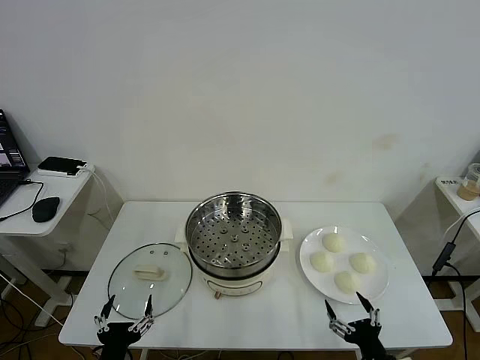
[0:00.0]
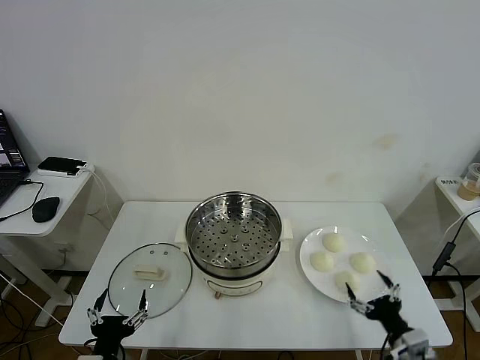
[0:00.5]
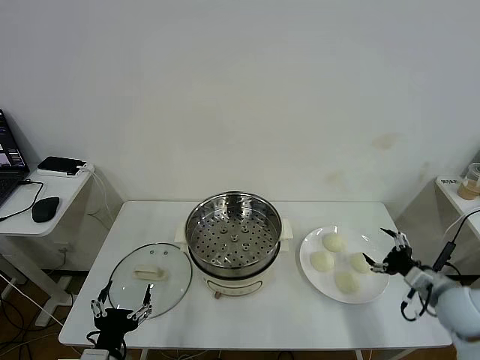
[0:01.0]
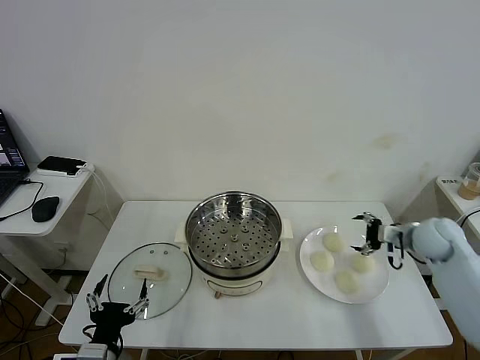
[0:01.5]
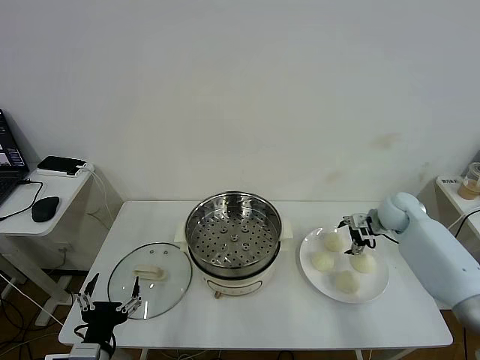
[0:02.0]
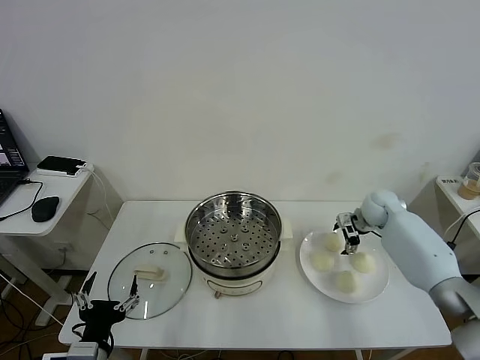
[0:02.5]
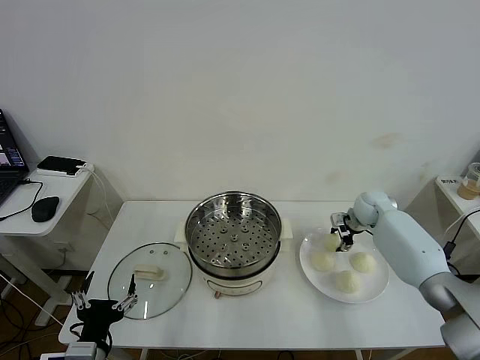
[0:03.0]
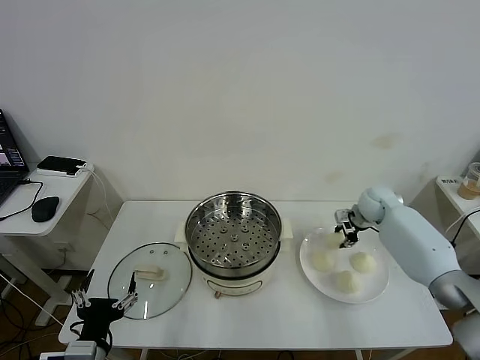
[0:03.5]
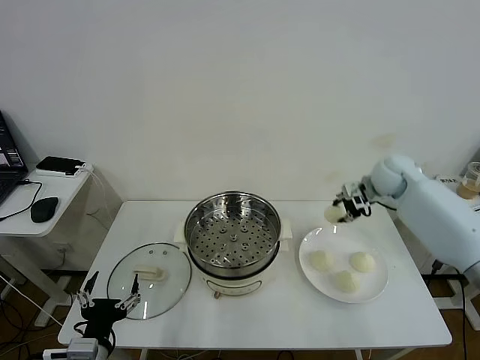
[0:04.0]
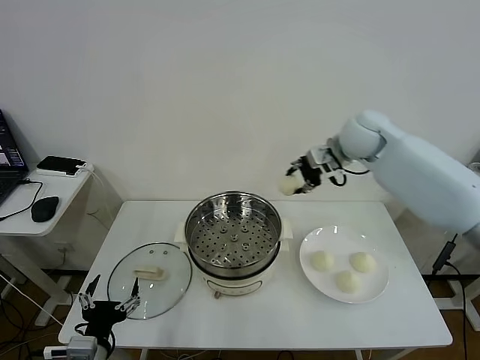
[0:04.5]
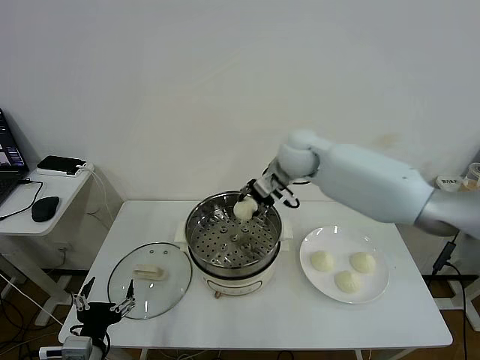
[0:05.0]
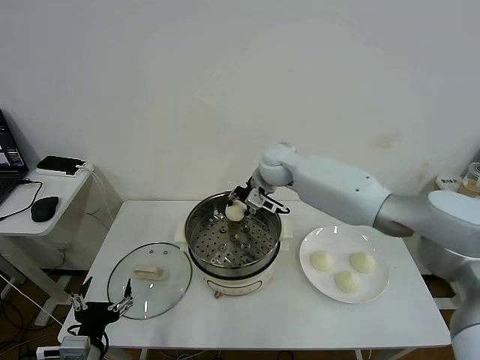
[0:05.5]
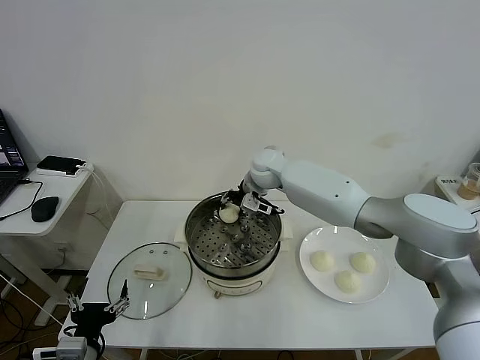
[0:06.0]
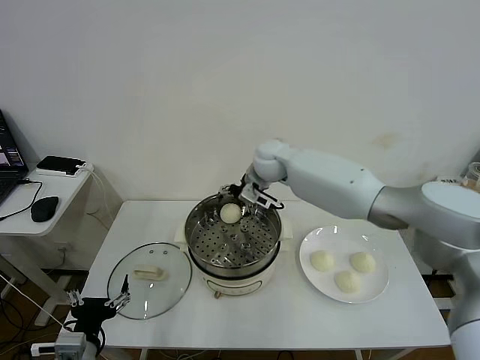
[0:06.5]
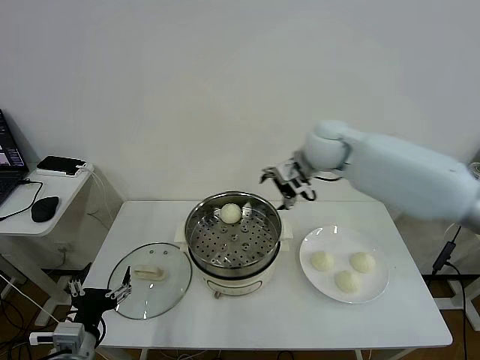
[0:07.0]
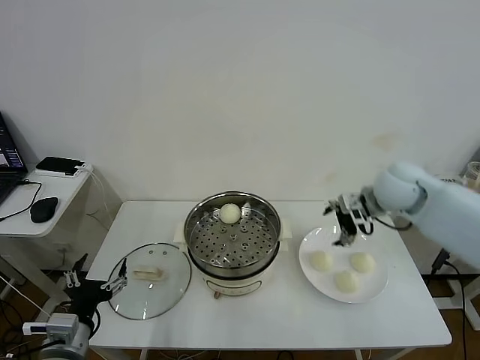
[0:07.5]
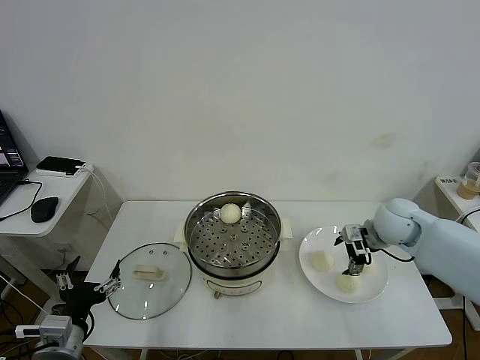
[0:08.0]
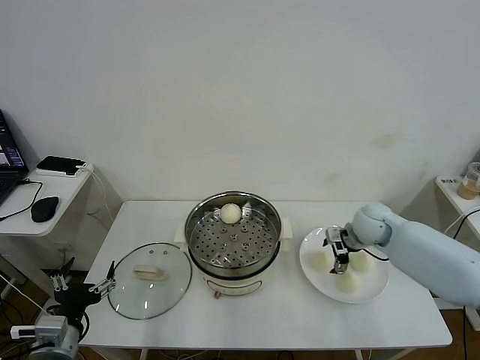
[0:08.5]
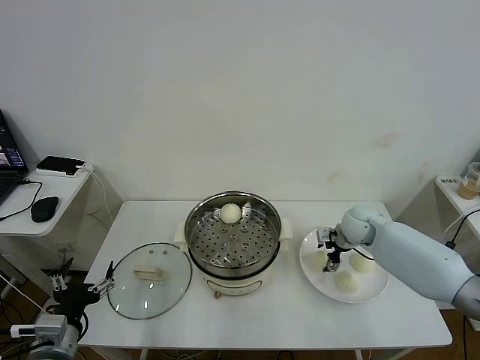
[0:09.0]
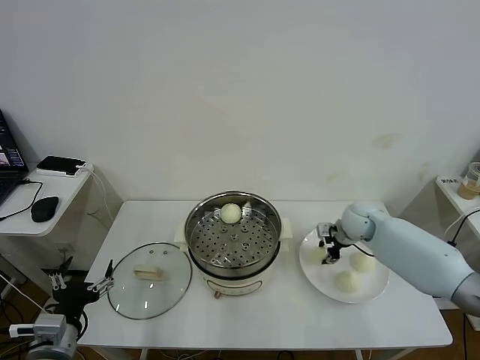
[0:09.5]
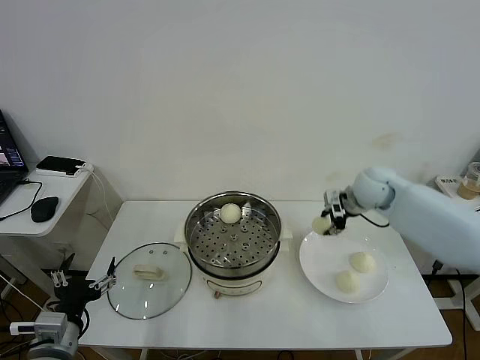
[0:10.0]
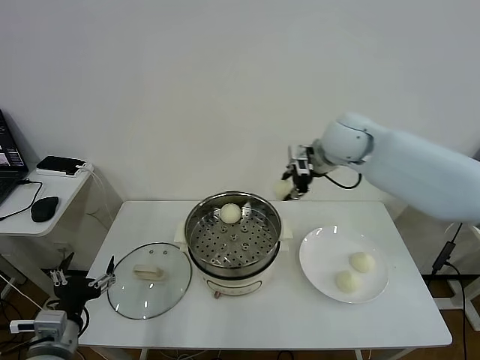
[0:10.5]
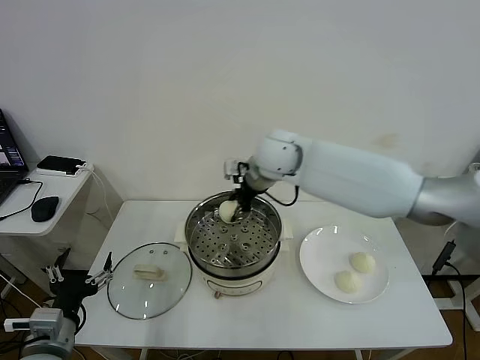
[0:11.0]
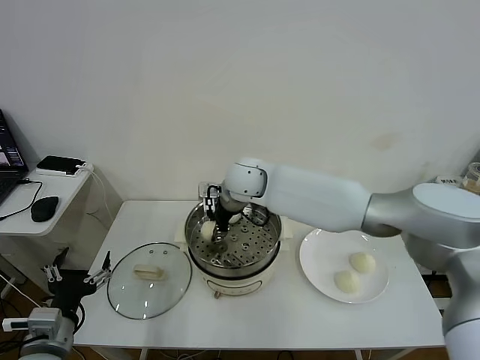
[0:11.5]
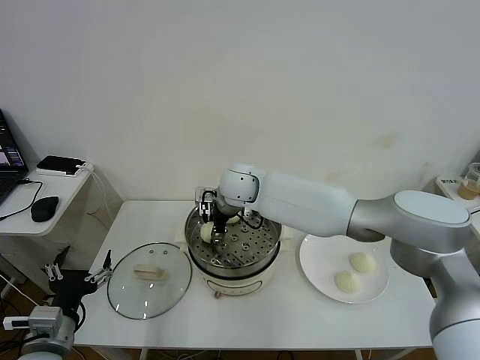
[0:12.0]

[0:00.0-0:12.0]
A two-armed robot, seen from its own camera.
Task of the whole recording: take steamed baozi put them in steamer then cover it.
Step, 0.0 to 2.5 s: Grasp the baozi in the plate with right gripper.
Step, 3.0 to 6.0 s: Place the baozi on the steamer with right gripper.
Step, 6.5 to 9.0 s: Grasp the baozi in the plate with right gripper.
2.0 to 4.0 s: The right gripper travels upward by roughly 15 cm, and closes its fingers.
4.0 to 6.0 s: The right gripper shifts approximately 25 cm to the left.
6.0 to 8.0 s: The right gripper heads to the right and backward, covering about 30 cm, and opens its fingers.
8.0 to 10.0 s: The right gripper shifts about 10 cm upward and forward, and closes up.
10.0 to 12.0 s: The right gripper travels to the left by about 30 cm, and opens up.

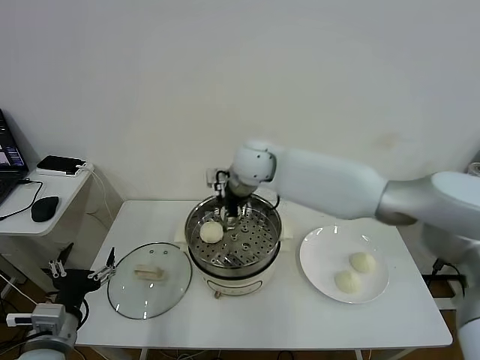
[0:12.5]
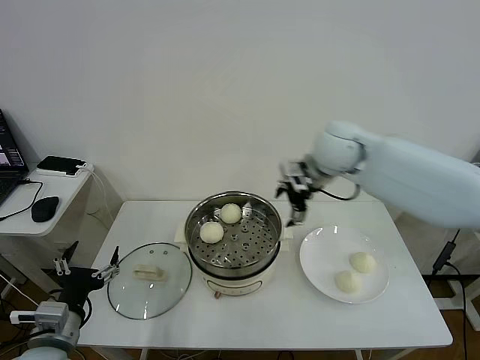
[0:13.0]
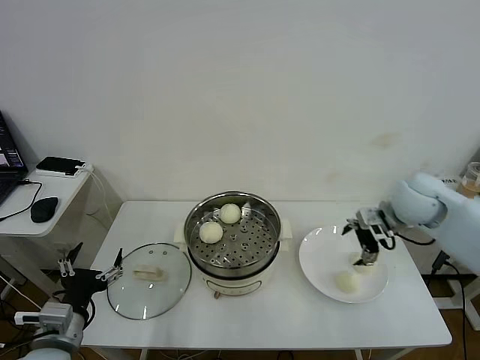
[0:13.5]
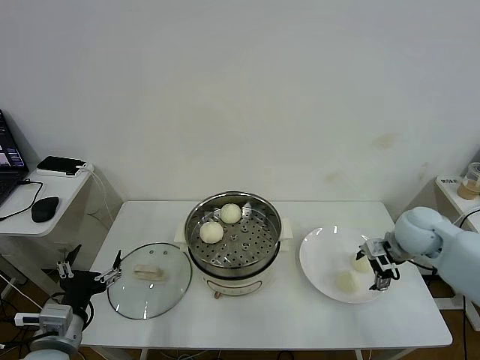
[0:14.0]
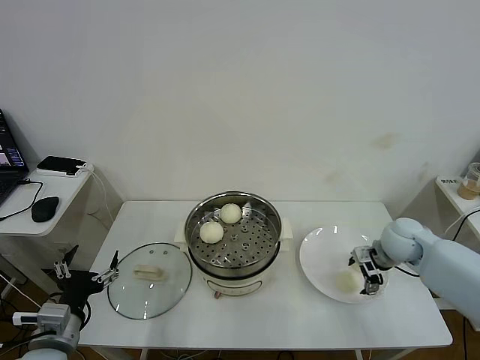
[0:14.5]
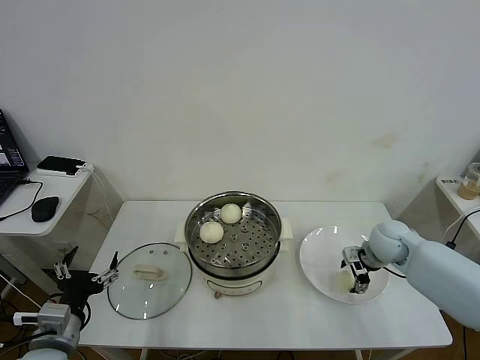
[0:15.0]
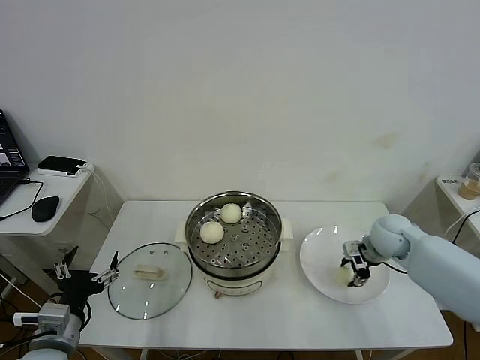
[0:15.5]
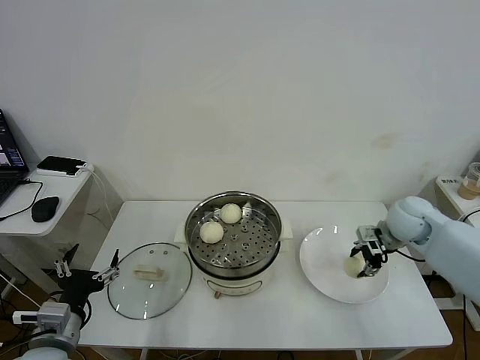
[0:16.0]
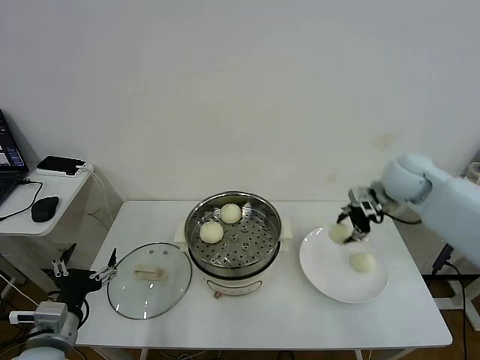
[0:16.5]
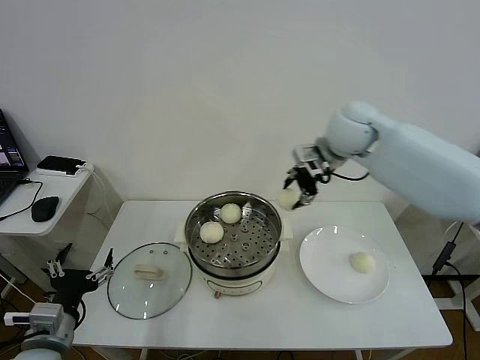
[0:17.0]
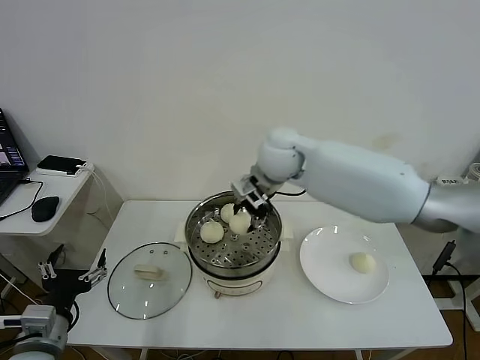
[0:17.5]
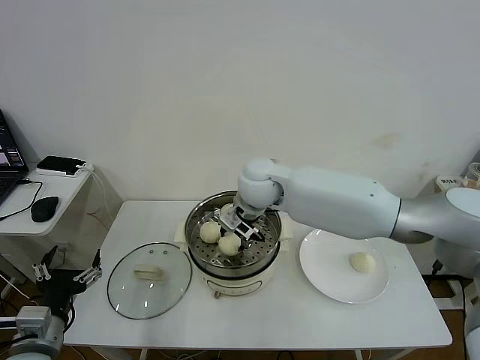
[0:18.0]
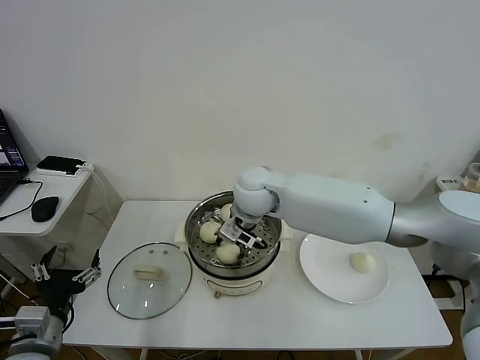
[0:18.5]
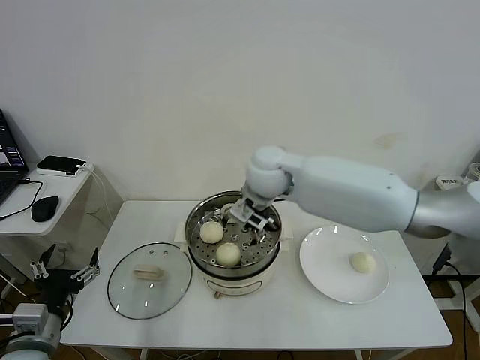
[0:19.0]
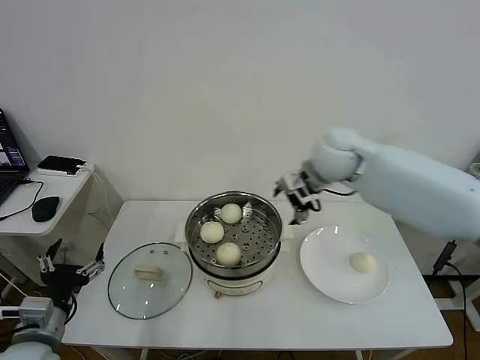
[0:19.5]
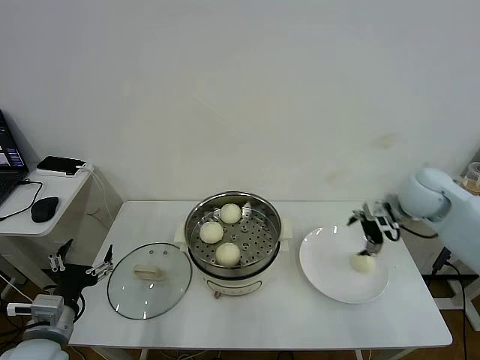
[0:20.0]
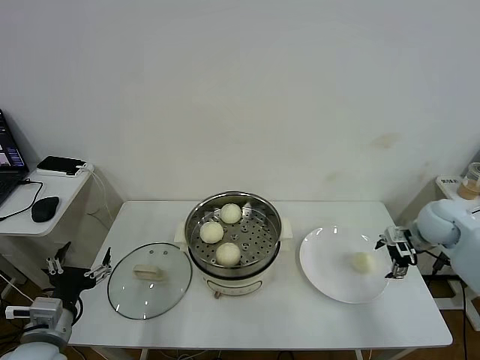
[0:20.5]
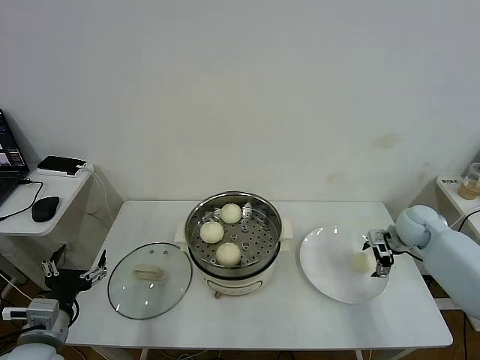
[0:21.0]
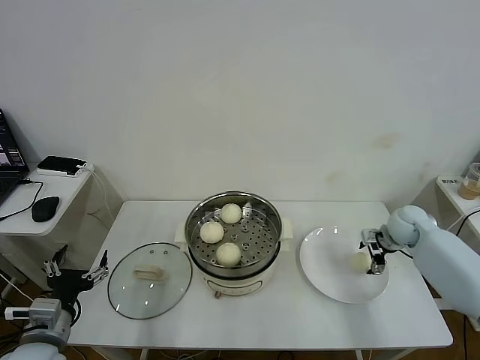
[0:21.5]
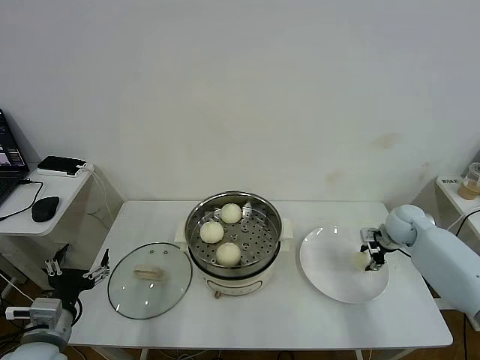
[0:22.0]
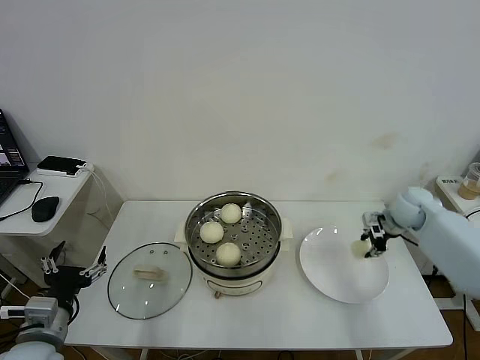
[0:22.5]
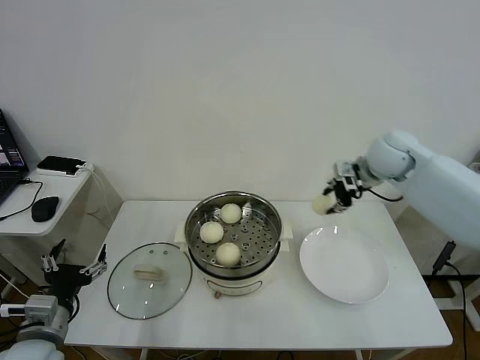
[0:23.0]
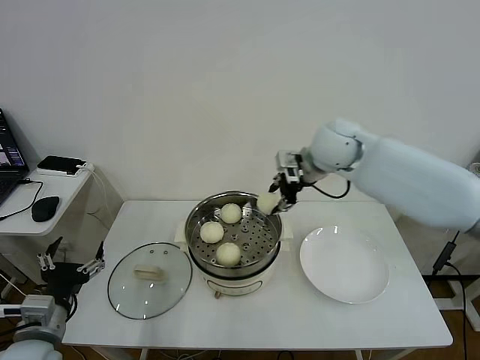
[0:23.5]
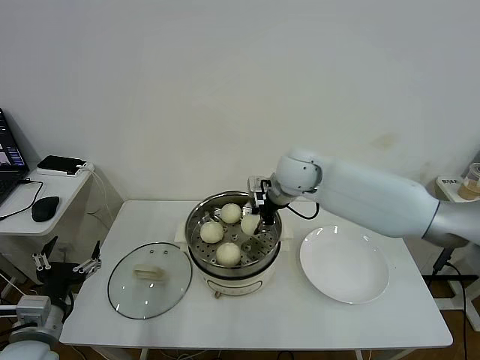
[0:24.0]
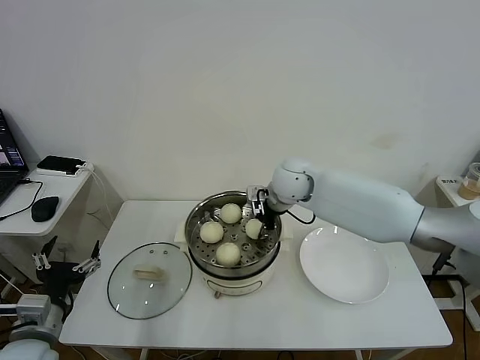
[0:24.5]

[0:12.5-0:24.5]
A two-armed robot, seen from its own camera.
Task of the whole recording: take steamed baozi put them in steamer then cover it.
Step, 12.5 to 15.5 s: Grasp the baozi in the plate with right gripper.
Step, 16.0 to 18.5 s: Place the baozi on the steamer with right gripper.
Step, 19.0 to 22.0 s: Grasp the baozi in the plate with right gripper.
12.5 to 14.5 s: The right gripper moves to the right and downward, approximately 35 cm.
14.5 to 16.5 s: The right gripper travels upward by some 15 cm, and closes up.
16.5 to 18.5 s: The right gripper moves to the left, some 30 cm.
18.5 to 20.5 s: The right gripper goes some 40 cm to the right, and opens up.
20.5 to 22.5 s: The right gripper heads forward, covering some 5 cm, and closes its fingers.
22.5 to 24.5 s: The right gripper travels to the left by some 30 cm.

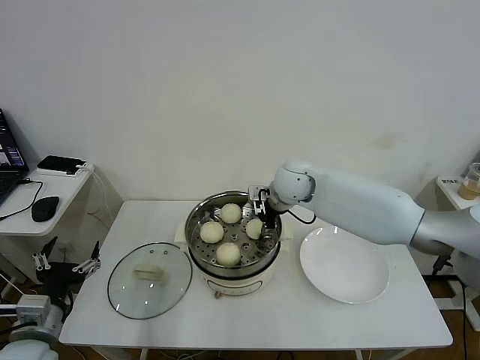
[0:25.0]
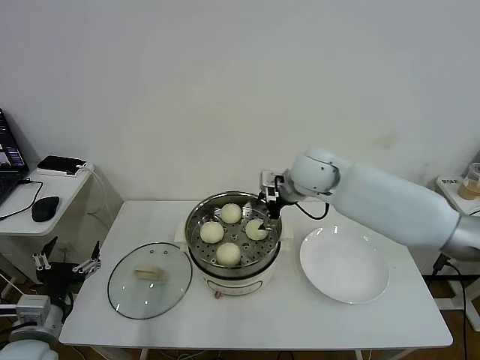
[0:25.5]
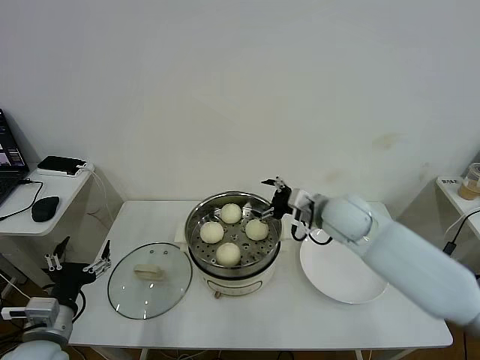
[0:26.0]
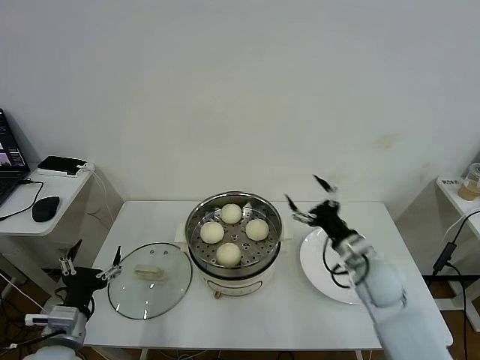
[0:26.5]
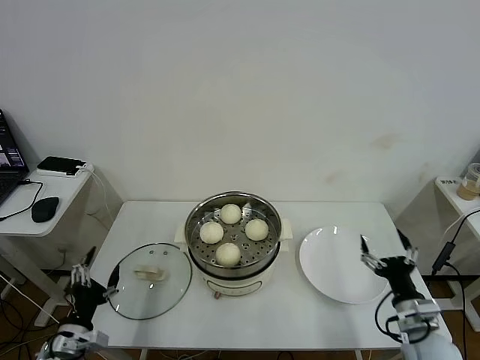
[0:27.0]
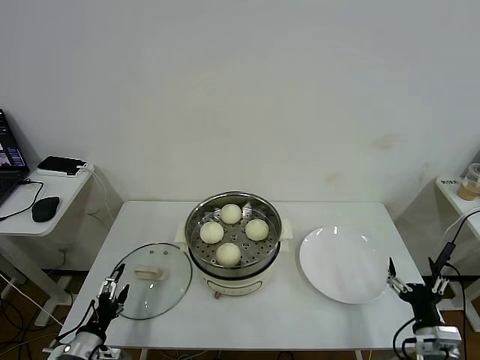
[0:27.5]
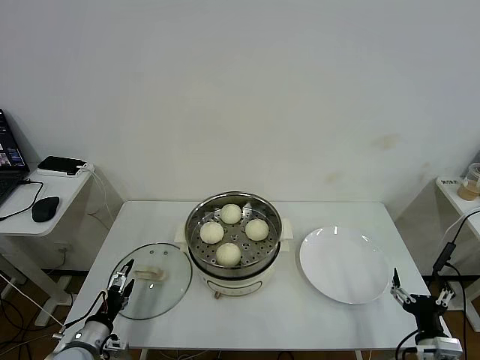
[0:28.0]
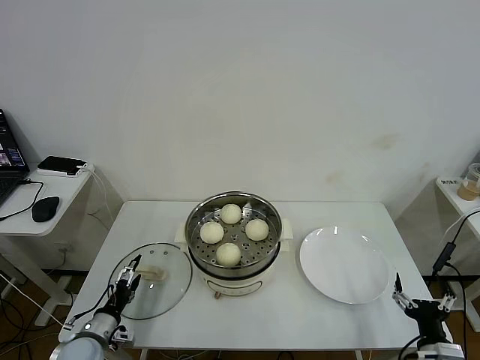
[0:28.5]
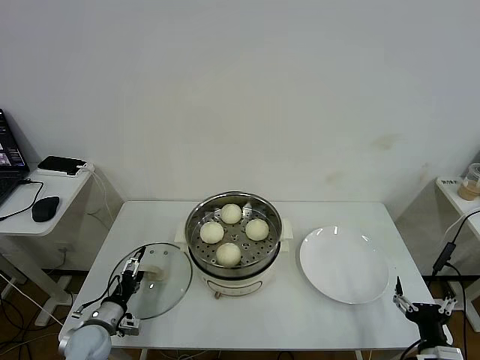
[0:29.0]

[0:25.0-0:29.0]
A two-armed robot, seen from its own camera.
Task of the whole recording: take steamed baozi put them in steamer then cover it.
25.0 to 27.0 s: The right gripper goes some 40 cm backward, to the right and downward, and opens; the left gripper goes roughly 10 cm downward.
27.0 to 29.0 s: The left gripper heads downward and forward, covering roughly 10 cm, while the right gripper shifts about 10 cm backward.
